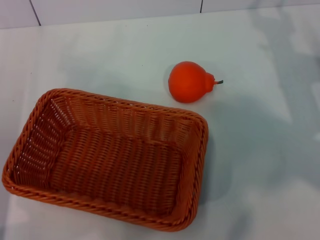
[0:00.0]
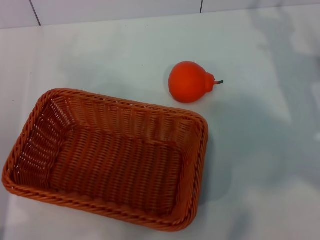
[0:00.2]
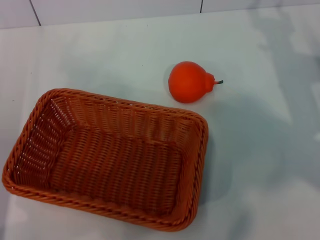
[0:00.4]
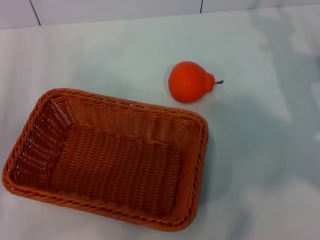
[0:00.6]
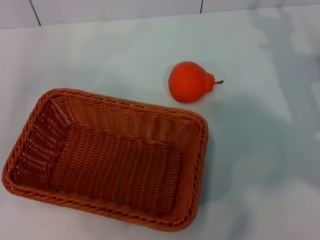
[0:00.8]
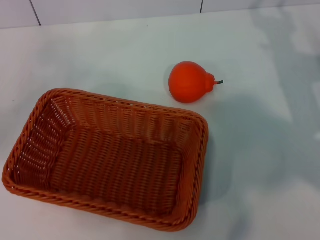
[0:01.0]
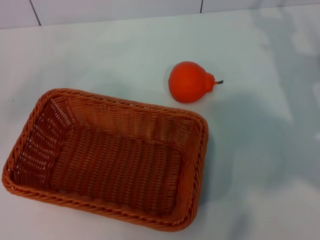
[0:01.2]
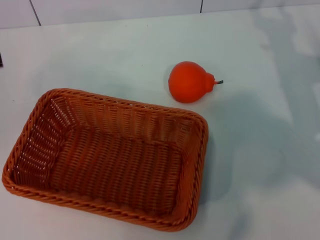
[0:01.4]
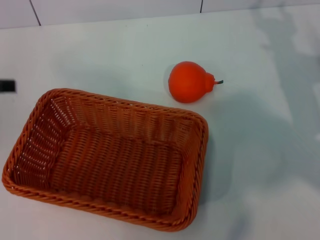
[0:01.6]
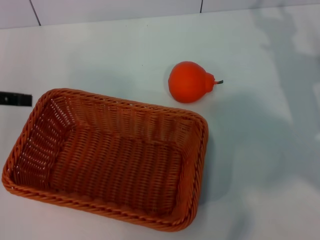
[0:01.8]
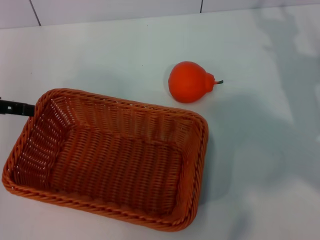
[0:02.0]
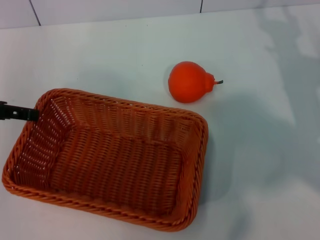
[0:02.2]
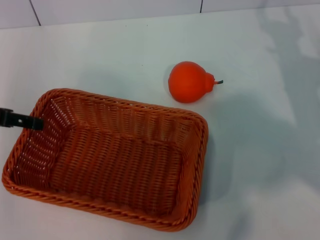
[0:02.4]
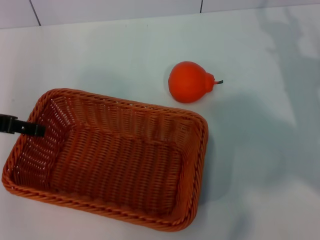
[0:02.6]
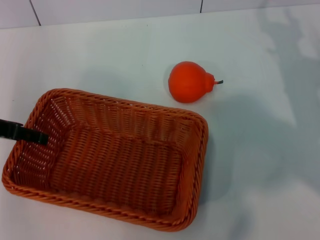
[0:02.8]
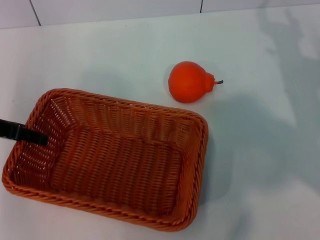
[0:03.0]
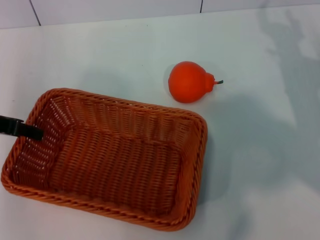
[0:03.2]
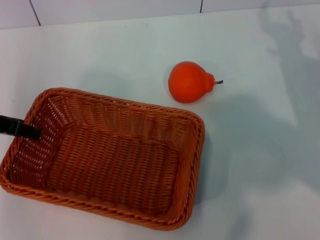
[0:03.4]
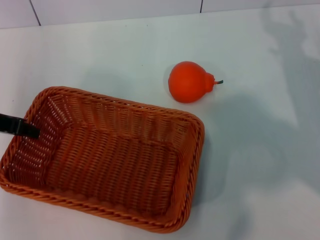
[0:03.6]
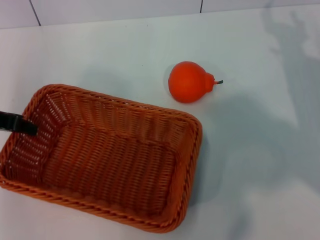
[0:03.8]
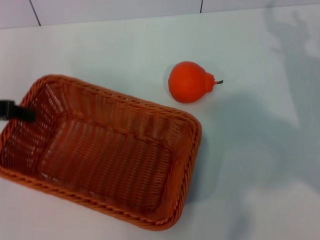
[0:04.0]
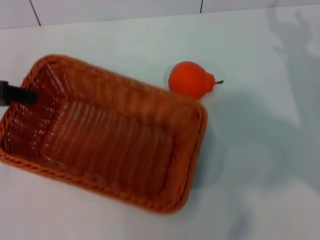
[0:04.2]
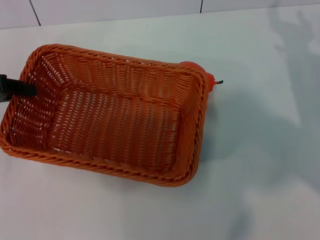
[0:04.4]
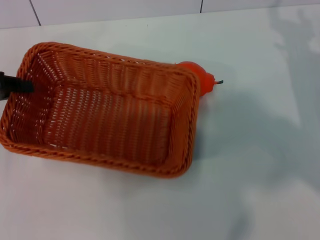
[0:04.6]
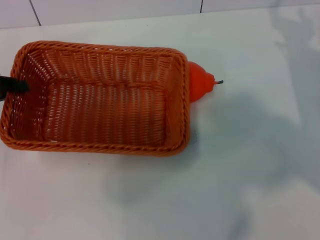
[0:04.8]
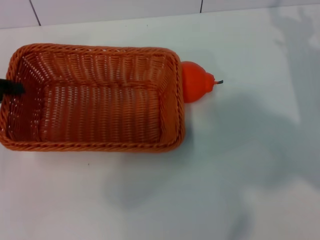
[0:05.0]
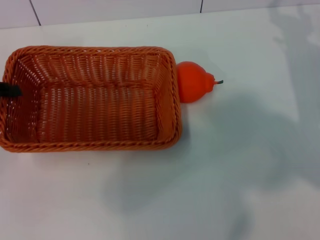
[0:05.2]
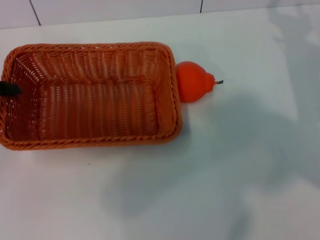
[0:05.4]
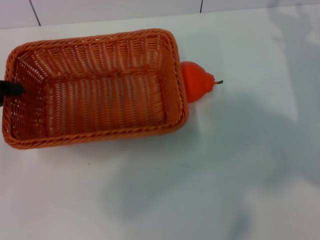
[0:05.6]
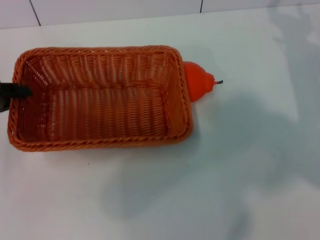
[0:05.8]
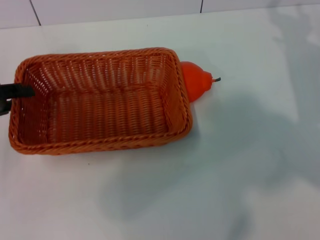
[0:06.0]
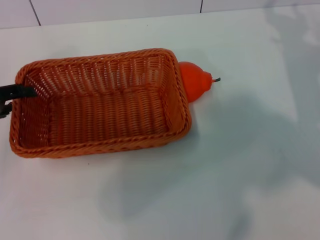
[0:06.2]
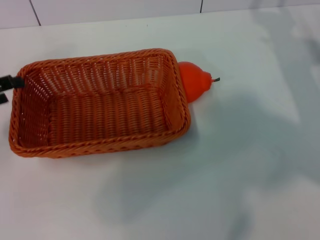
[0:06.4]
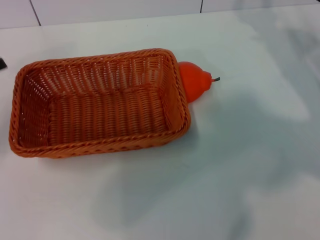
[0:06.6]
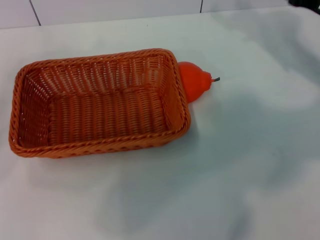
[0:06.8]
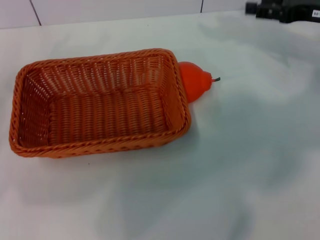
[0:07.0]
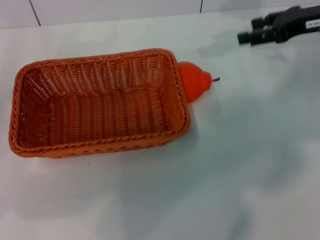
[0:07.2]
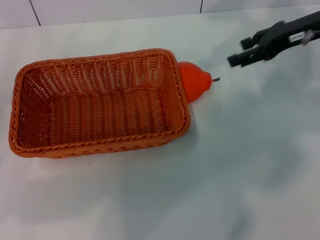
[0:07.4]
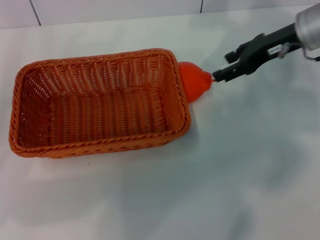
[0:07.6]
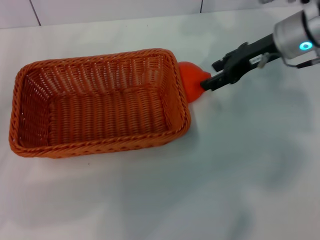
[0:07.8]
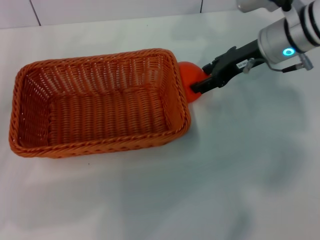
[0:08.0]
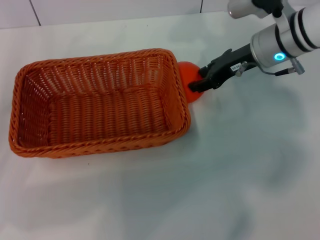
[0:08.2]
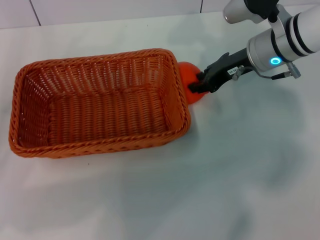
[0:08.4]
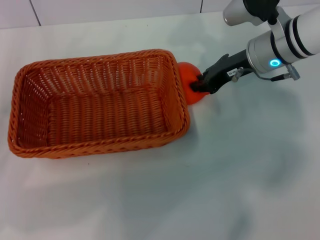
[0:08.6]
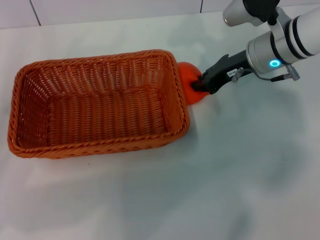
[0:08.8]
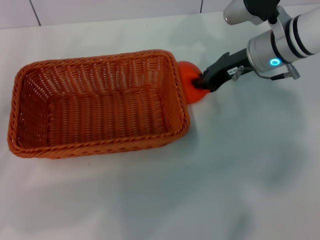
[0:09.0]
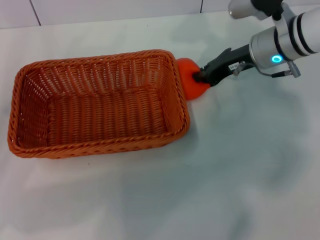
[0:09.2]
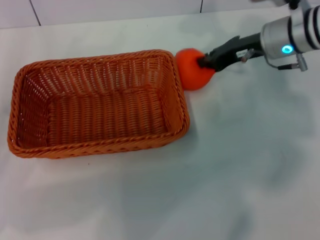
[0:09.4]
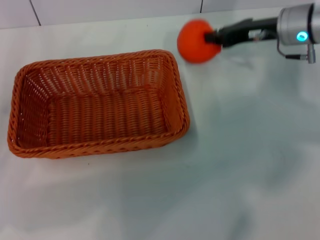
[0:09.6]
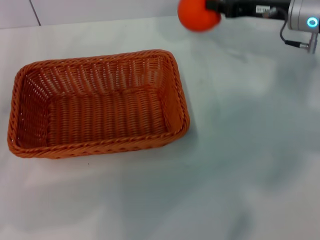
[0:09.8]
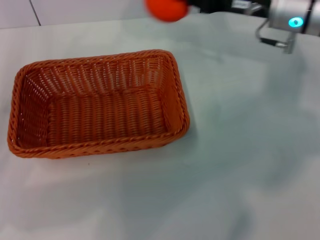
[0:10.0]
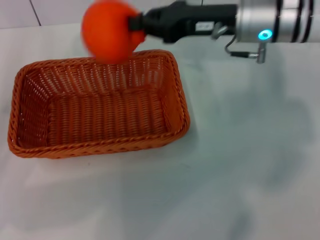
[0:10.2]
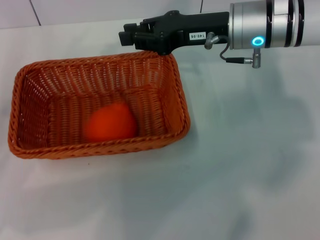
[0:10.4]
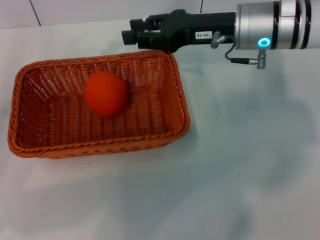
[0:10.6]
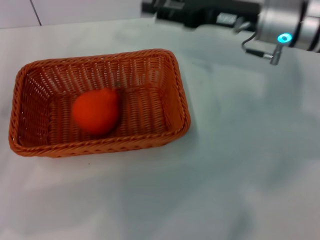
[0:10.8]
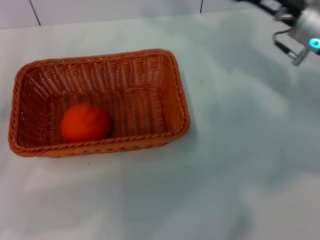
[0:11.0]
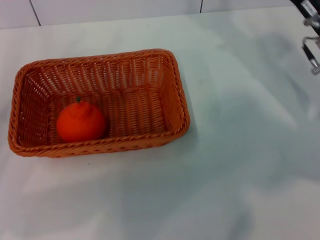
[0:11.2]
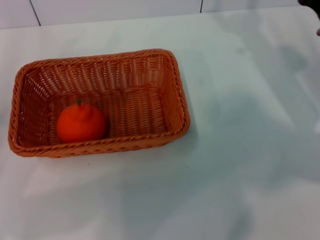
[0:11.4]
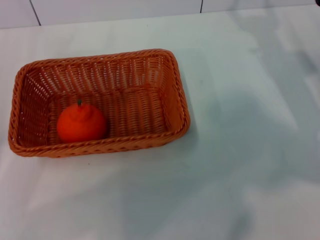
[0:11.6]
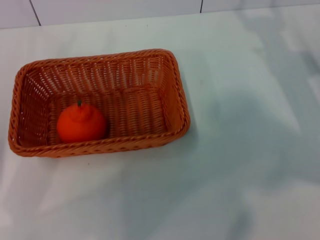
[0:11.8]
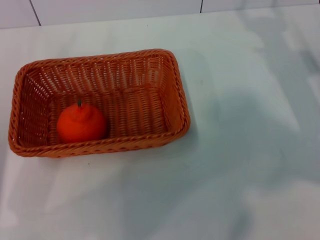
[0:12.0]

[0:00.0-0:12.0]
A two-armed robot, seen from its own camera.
Task of the whole recording: the left gripper pick up the yellow basket and place it horizontally in the middle of the table, the right gripper pick up the orange and place it into the yellow basket.
Step, 0:00.0 to 0:04.0: Pick up the light basket with the left gripper.
Step, 0:04.4 to 0:06.4: Place the light basket in the center of view with the left gripper.
Step, 0:06.6 to 0:09.4: Pick up the orange with the right gripper.
Step, 0:09.6 to 0:10.4: Place the orange into the light basket with the right gripper.
0:00.0 to 0:01.6: The left gripper travels upward and forward by some 15 cm.
0:01.6 to 0:03.0: The left gripper shifts some 10 cm to the right and downward.
0:03.0 to 0:04.4: The left gripper closes.
0:04.4 to 0:06.0: The grippers move only a little.
0:06.0 to 0:07.6: The right gripper moves upward, to the left and forward, roughly 15 cm, while the left gripper shifts by roughly 5 cm, and opens up.
0:07.6 to 0:09.0: The right gripper is displaced to the left by about 5 cm, and closes up.
0:09.0 to 0:10.4: The right gripper shifts by about 5 cm.
0:10.4 to 0:12.0: The right gripper is displaced to the right and downward by some 15 cm, and opens up.

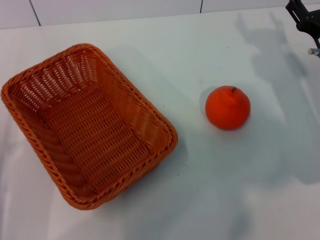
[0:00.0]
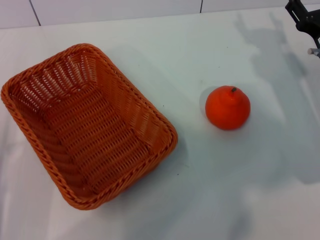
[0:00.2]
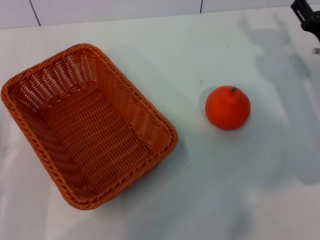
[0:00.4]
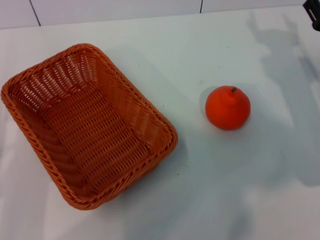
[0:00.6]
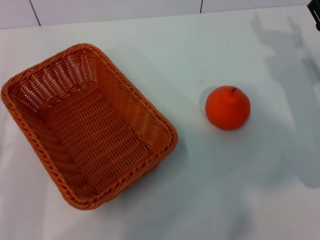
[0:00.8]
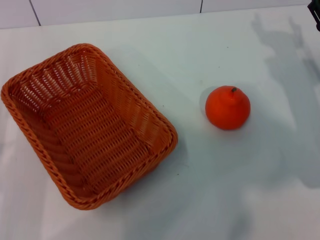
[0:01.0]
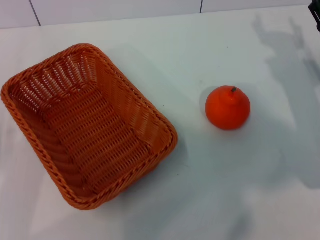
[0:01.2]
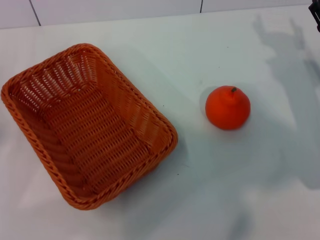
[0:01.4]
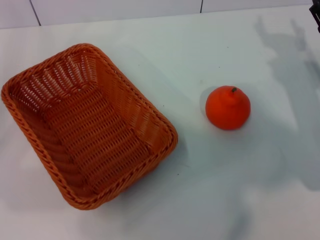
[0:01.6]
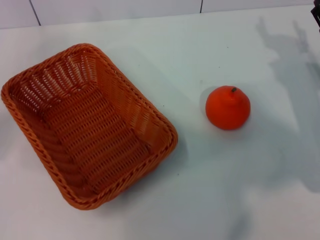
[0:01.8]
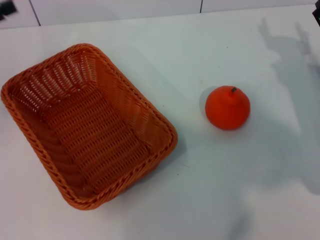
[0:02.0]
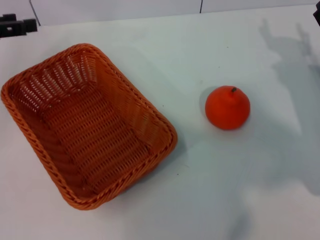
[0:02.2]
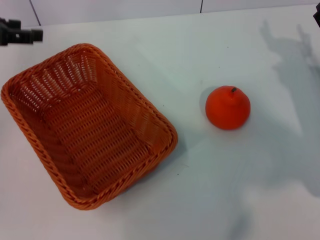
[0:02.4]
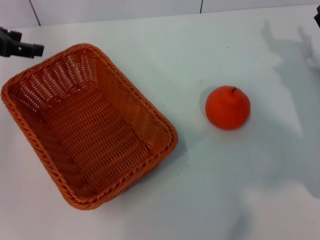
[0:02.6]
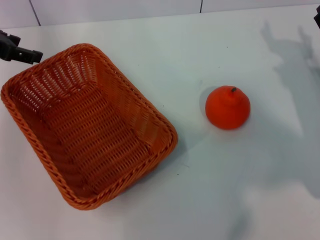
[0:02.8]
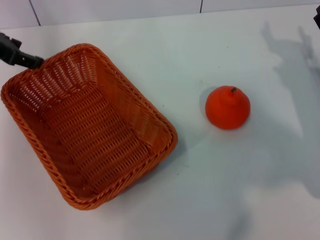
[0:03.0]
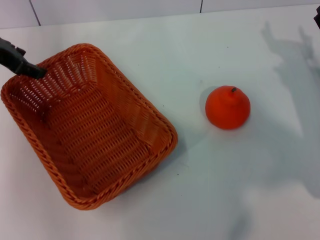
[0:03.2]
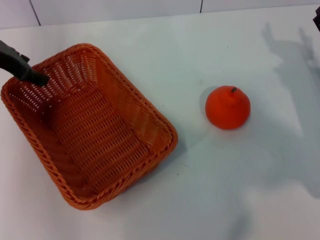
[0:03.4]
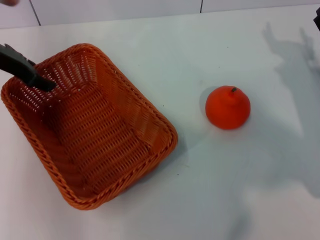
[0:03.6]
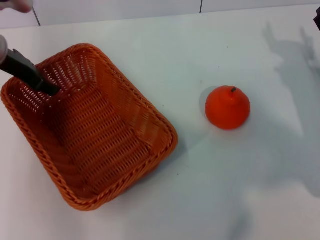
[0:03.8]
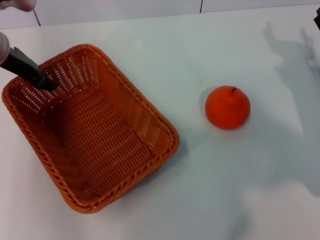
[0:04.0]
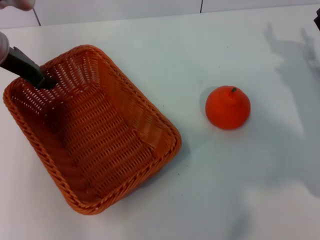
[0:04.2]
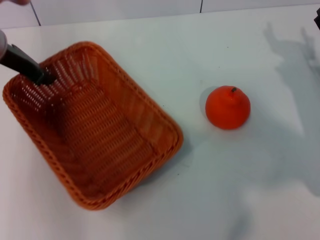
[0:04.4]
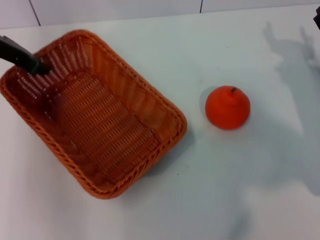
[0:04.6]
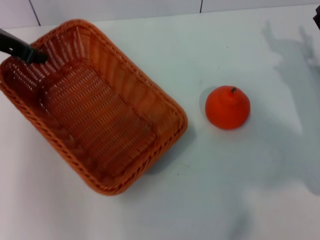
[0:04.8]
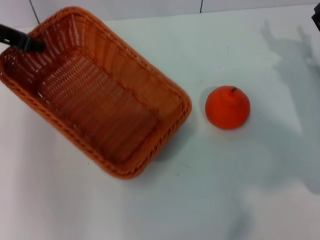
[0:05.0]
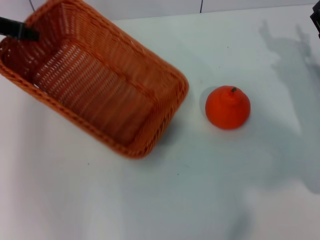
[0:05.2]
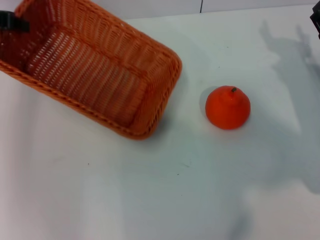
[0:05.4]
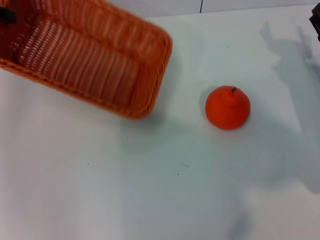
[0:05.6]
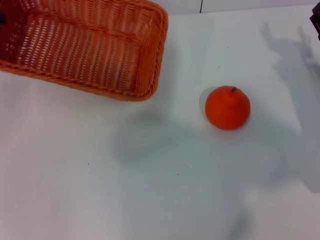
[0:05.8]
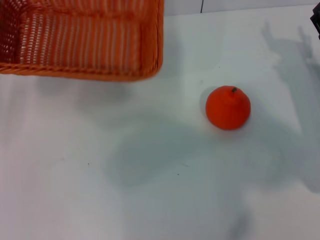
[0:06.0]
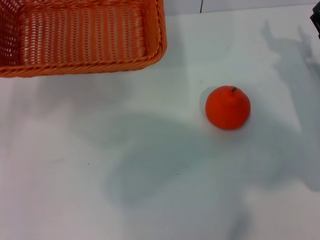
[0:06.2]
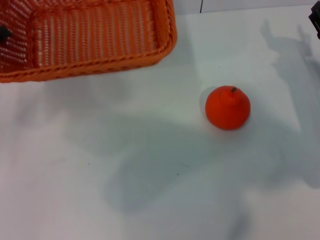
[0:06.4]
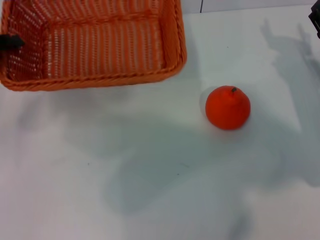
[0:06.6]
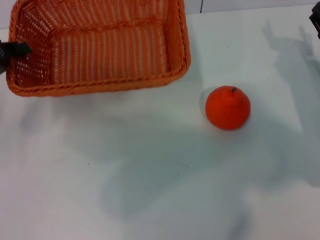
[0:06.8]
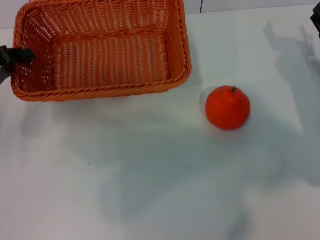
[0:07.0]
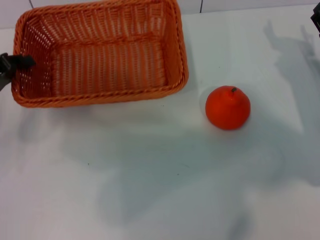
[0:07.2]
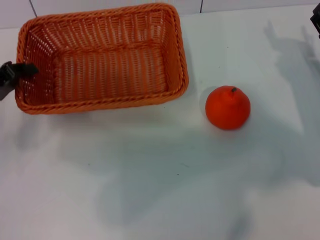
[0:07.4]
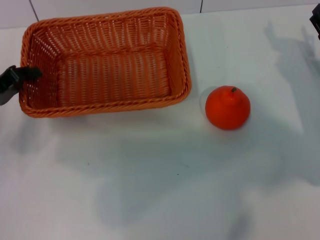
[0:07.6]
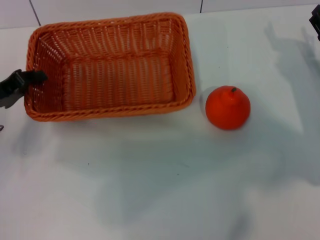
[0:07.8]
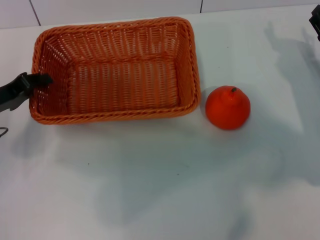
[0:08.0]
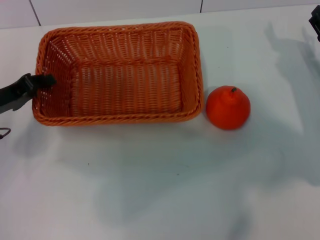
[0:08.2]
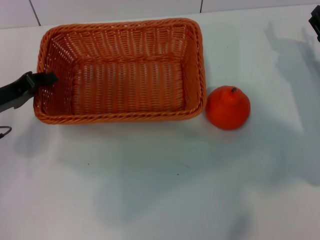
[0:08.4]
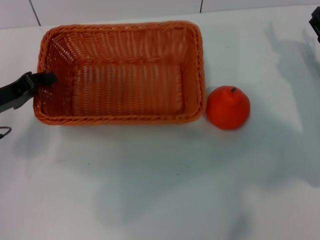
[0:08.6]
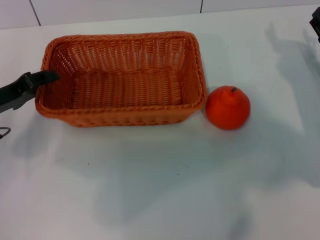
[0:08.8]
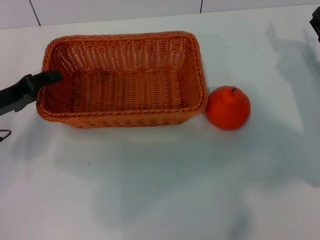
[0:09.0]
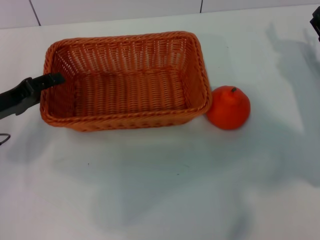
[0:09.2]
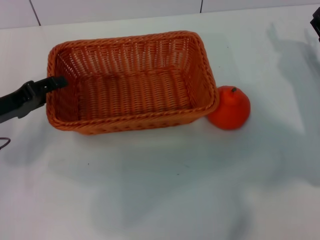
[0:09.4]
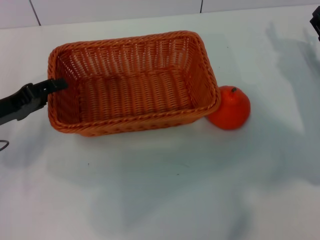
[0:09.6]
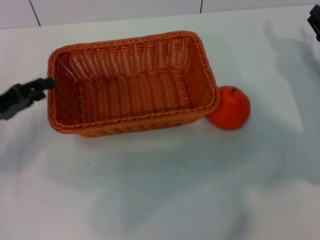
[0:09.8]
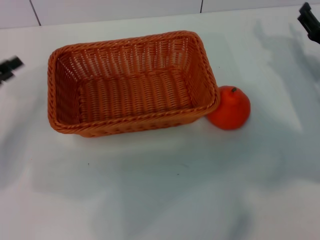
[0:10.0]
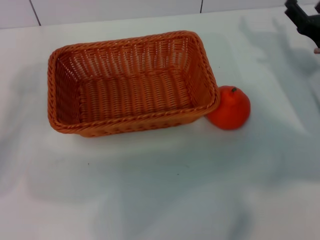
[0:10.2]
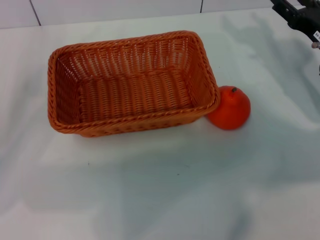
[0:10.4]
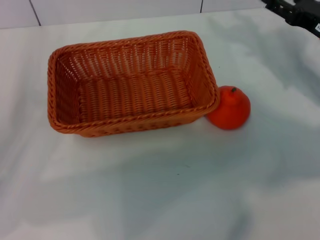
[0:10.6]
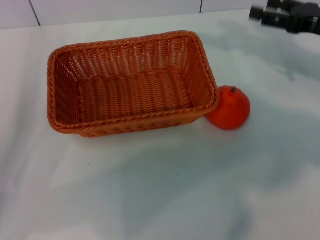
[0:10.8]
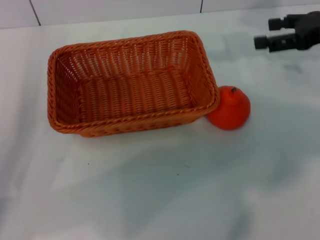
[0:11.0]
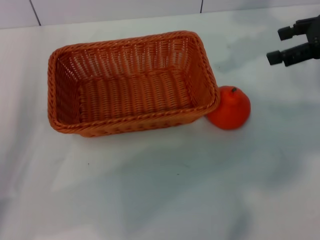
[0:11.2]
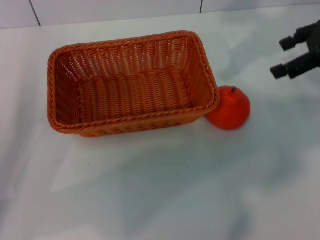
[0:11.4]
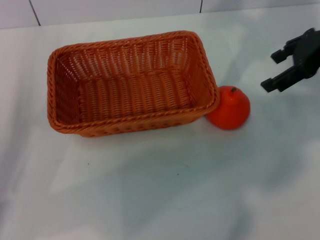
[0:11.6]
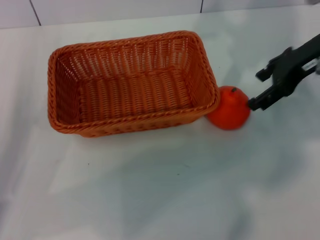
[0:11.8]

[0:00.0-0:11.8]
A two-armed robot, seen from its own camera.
Task of the whole recording: the left gripper pick up the yellow basket and place it horizontally in the middle of the table, the right gripper pick up the orange and place it into the yellow basket.
Step, 0:00.0 to 0:05.0: Pick up the light basket with the left gripper.
Step, 0:05.2 to 0:09.8: Place the light basket in the center of view with the left gripper.
0:01.4 to 0:03.0: The left gripper moves forward and upward, roughly 20 cm.
0:03.0 to 0:04.4: The left gripper goes about 5 cm to the right, and closes up.
0:04.4 to 0:06.0: The left gripper is displaced to the left and backward by some 10 cm.
0:06.0 to 0:07.4: The left gripper travels downward by roughly 10 cm.
0:07.4 to 0:08.8: The grippers move only a little.
0:08.8 to 0:10.4: The left gripper changes place by approximately 5 cm, and opens.
0:10.4 to 0:11.8: The right gripper goes some 15 cm upward.
